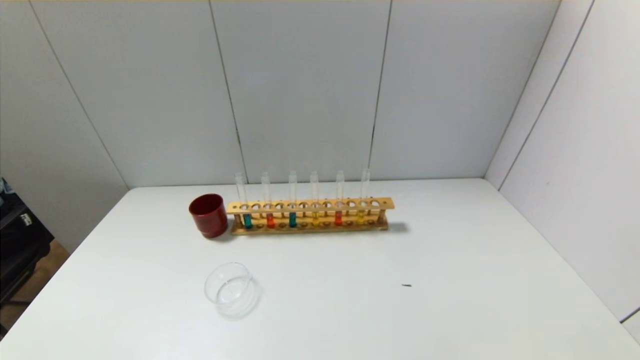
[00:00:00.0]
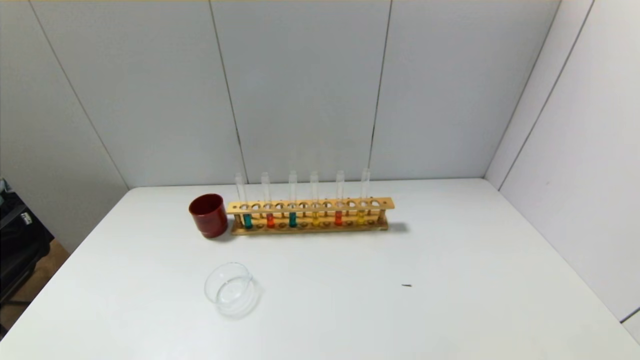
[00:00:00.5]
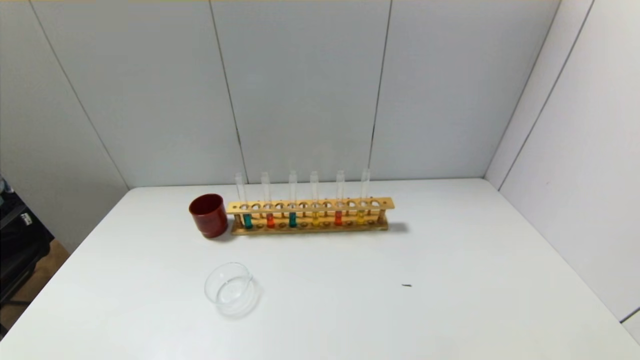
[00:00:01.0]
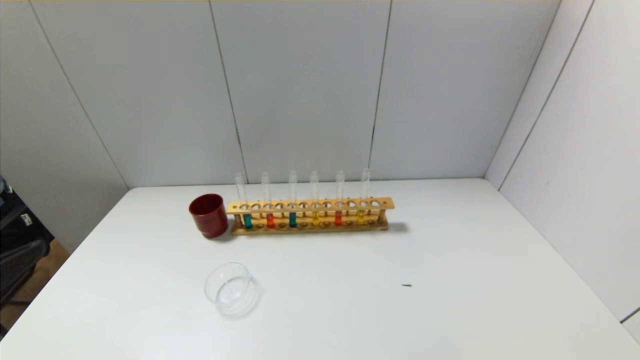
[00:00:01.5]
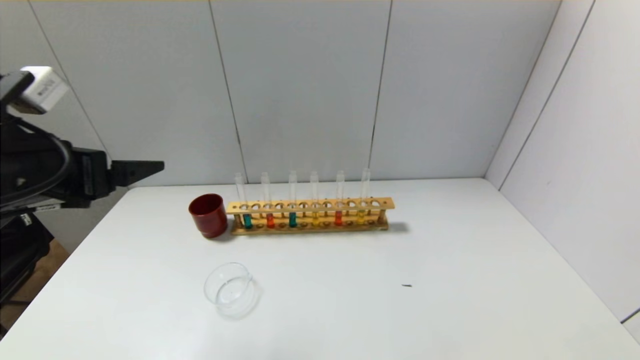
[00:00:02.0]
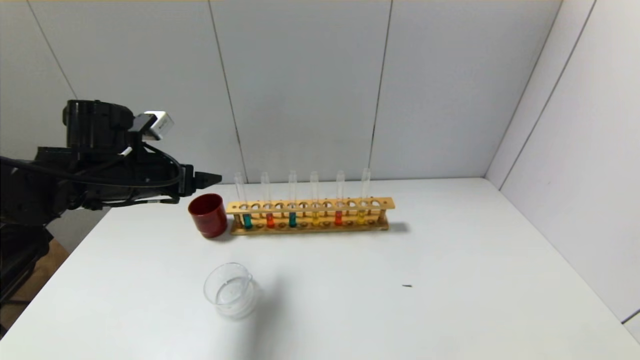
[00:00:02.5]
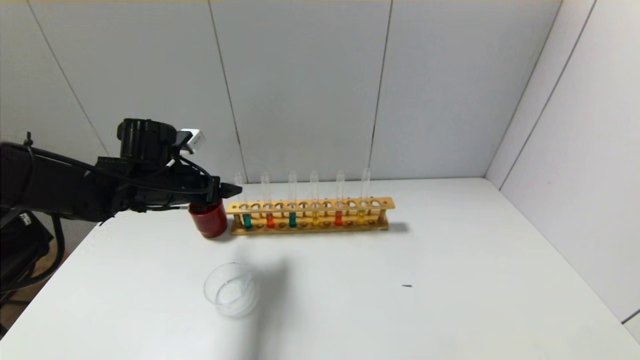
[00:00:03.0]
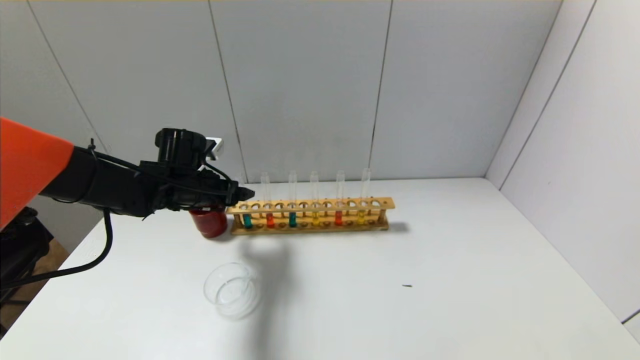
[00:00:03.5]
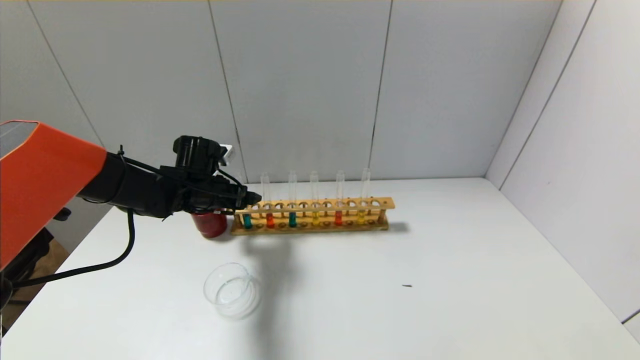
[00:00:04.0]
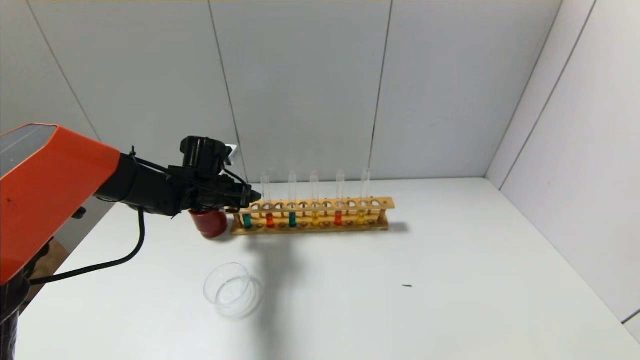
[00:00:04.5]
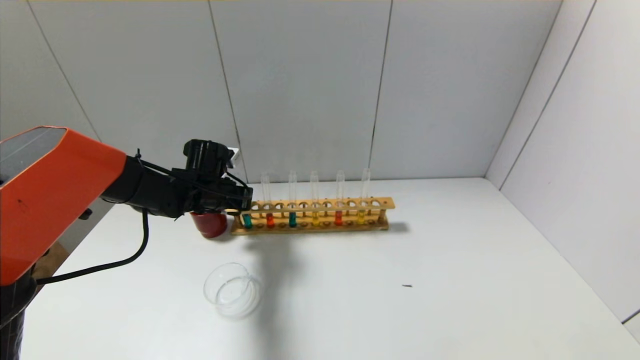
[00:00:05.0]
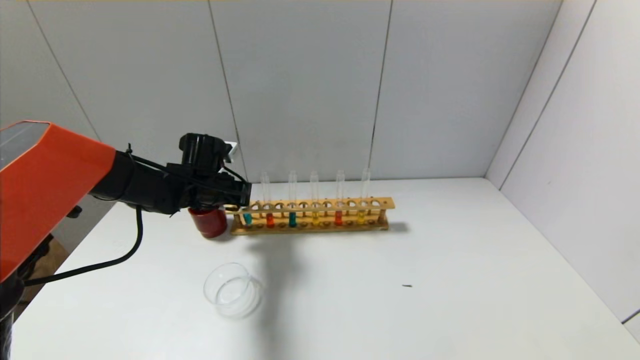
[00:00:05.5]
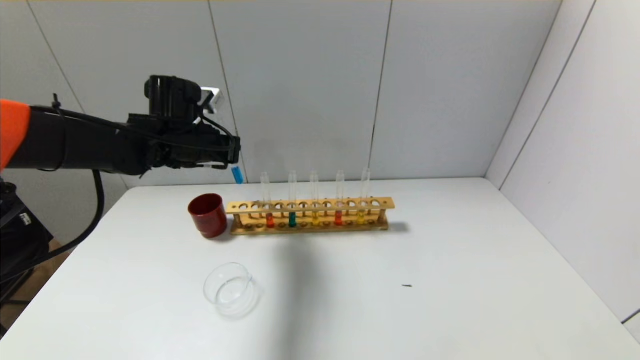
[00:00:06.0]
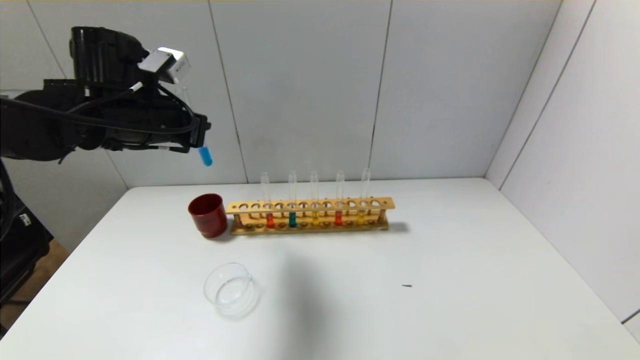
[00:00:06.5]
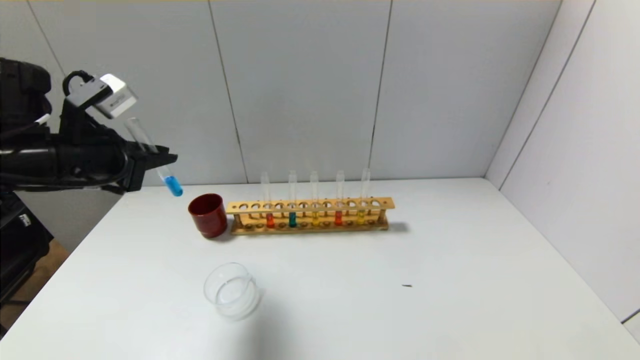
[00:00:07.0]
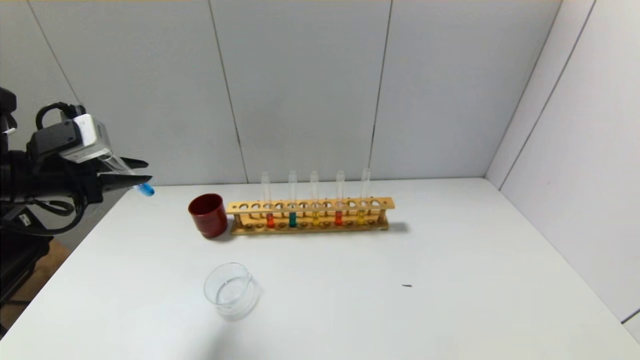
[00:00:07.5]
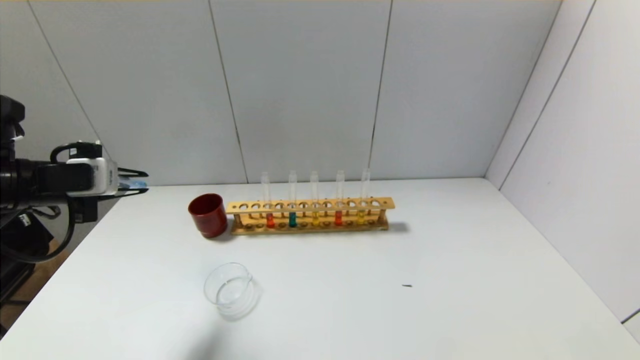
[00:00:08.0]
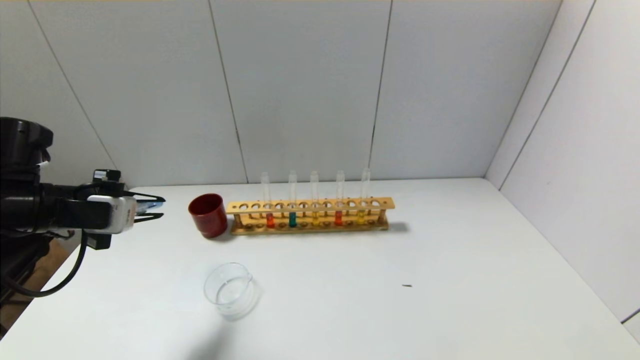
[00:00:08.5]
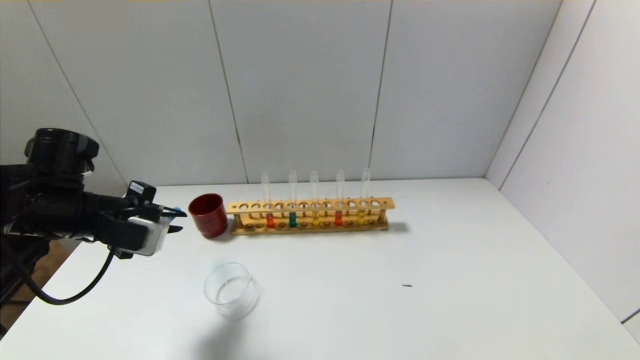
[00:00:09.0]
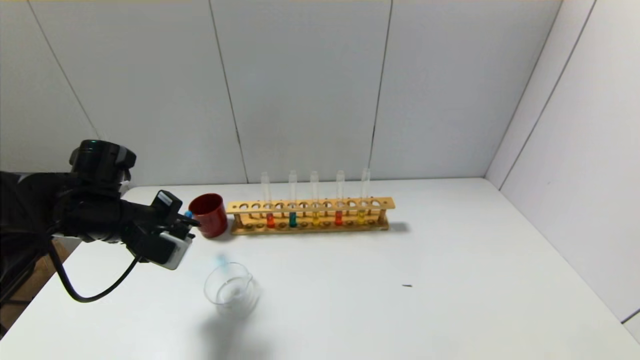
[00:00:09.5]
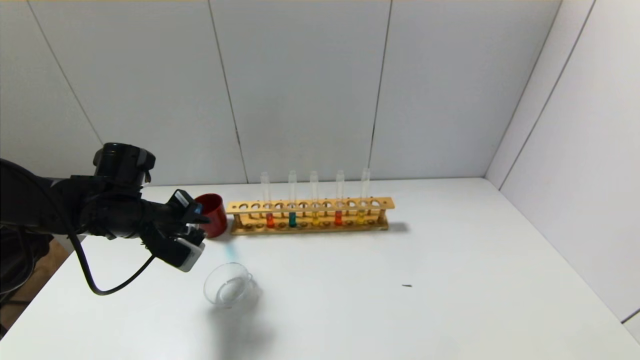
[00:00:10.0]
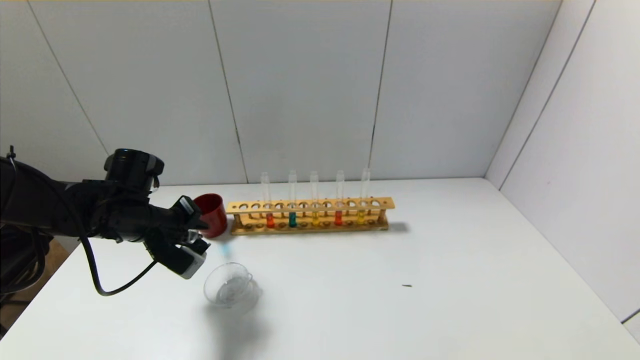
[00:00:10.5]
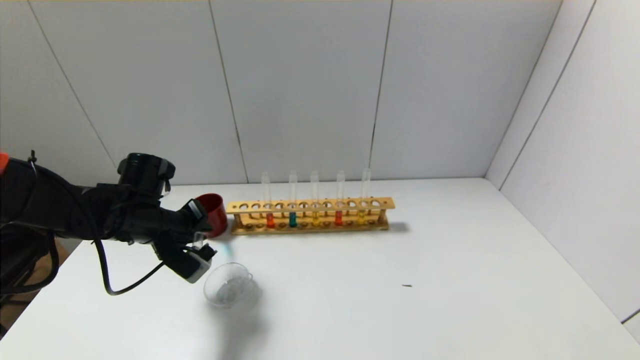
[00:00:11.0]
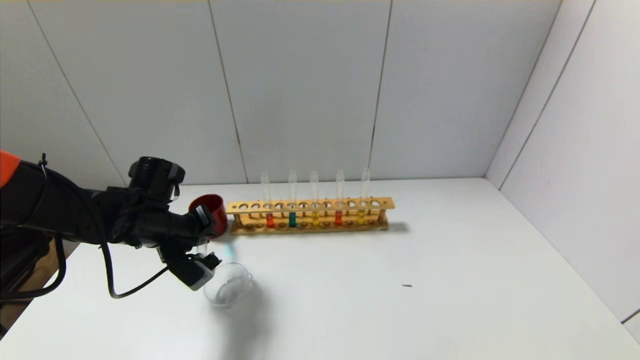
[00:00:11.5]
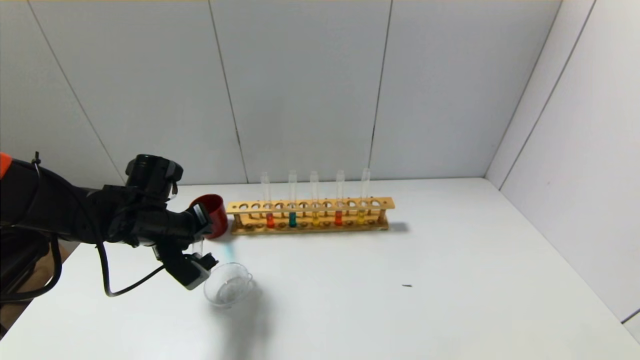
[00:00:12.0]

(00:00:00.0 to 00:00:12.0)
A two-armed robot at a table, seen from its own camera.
Step, 00:00:00.0 - 00:00:05.0: Grasp the blue reagent with the left gripper.
00:00:00.0 - 00:00:02.0: The left gripper moves forward and upward, about 30 cm.
00:00:02.0 - 00:00:04.0: The left gripper heads forward, downward and to the right, covering about 25 cm.
00:00:04.0 - 00:00:06.0: The left gripper is displaced upward by some 10 cm, and closes up.
00:00:06.0 - 00:00:08.0: The left gripper moves to the left and backward, approximately 20 cm.
00:00:08.0 - 00:00:10.0: The left gripper moves downward, to the right and forward, roughly 10 cm.
00:00:10.0 - 00:00:12.0: The grippers make only small movements.

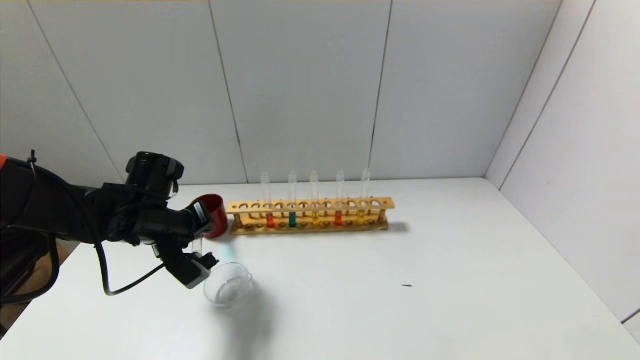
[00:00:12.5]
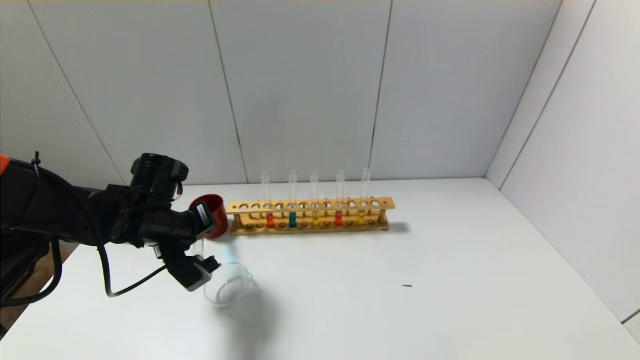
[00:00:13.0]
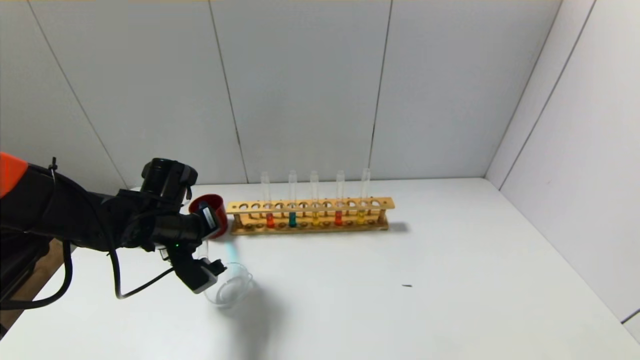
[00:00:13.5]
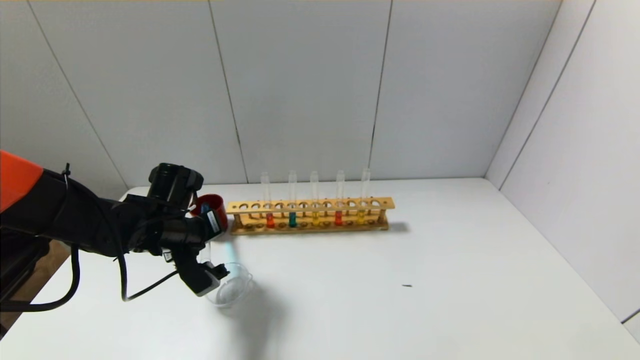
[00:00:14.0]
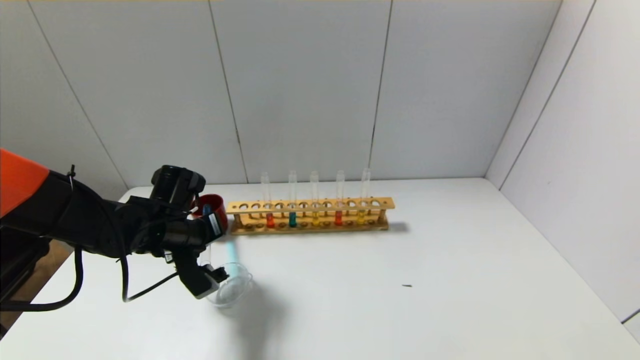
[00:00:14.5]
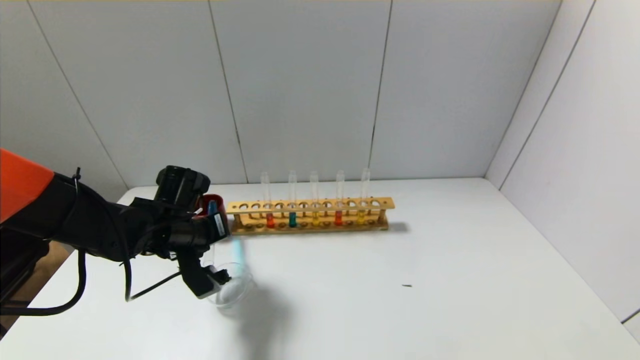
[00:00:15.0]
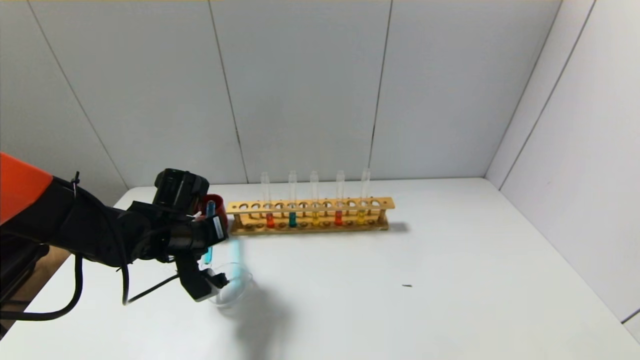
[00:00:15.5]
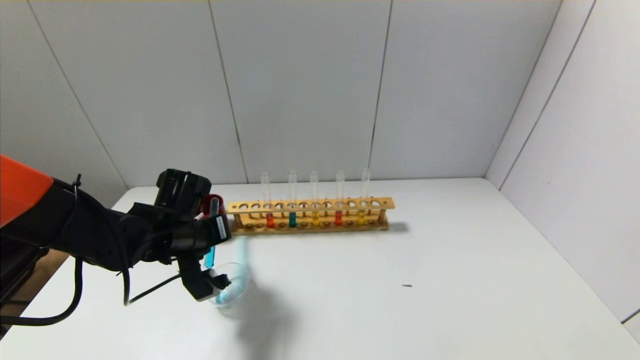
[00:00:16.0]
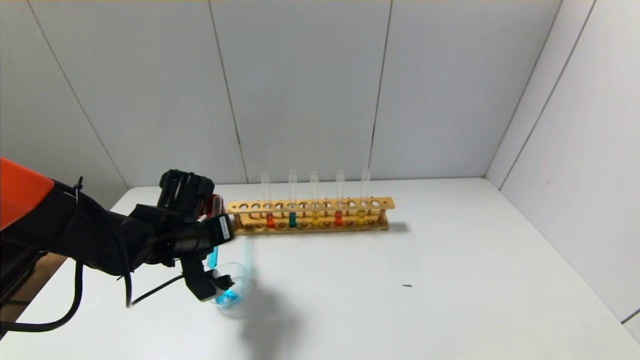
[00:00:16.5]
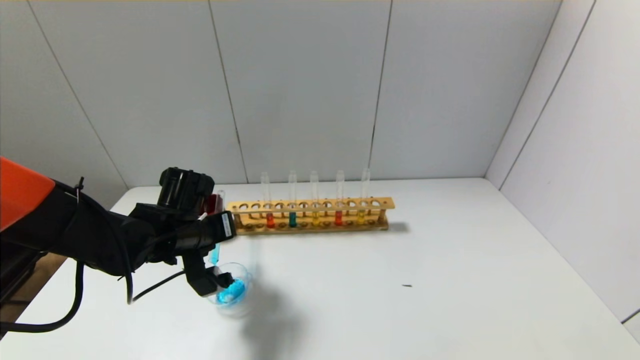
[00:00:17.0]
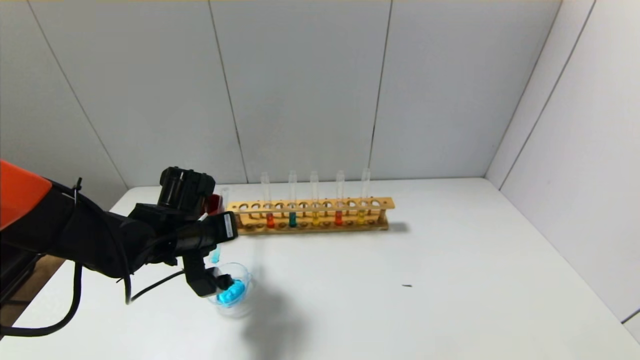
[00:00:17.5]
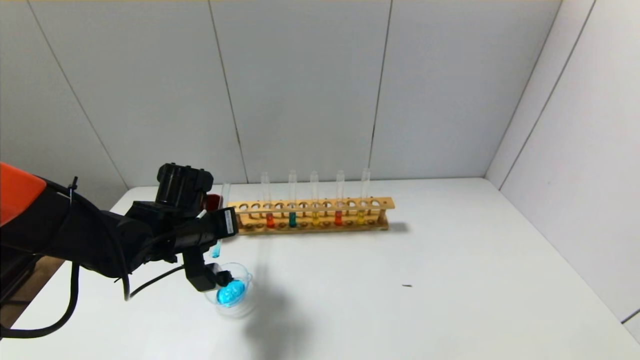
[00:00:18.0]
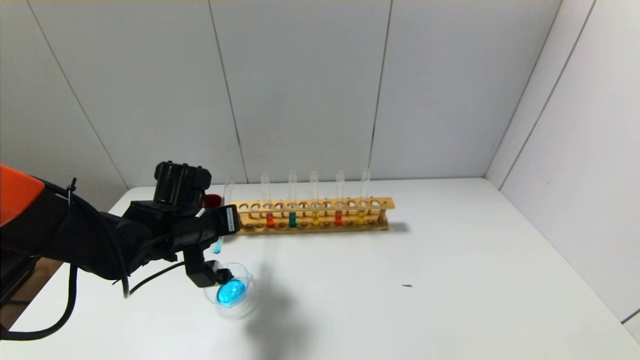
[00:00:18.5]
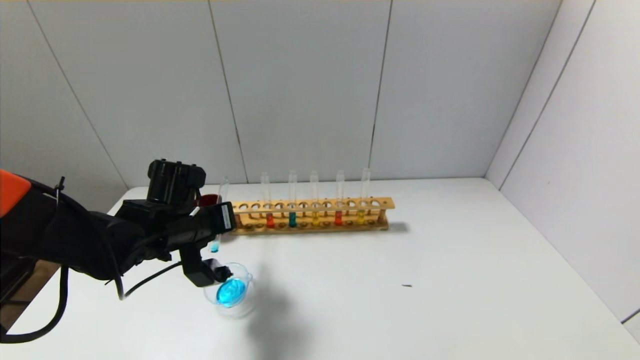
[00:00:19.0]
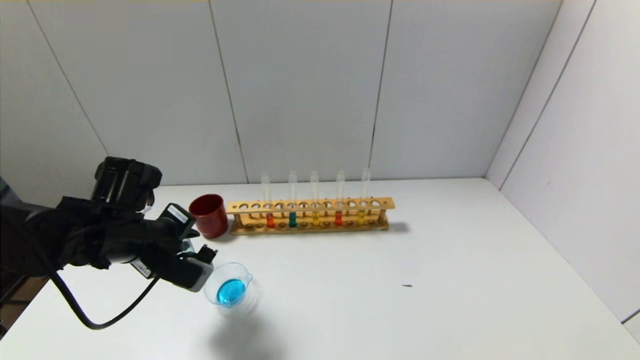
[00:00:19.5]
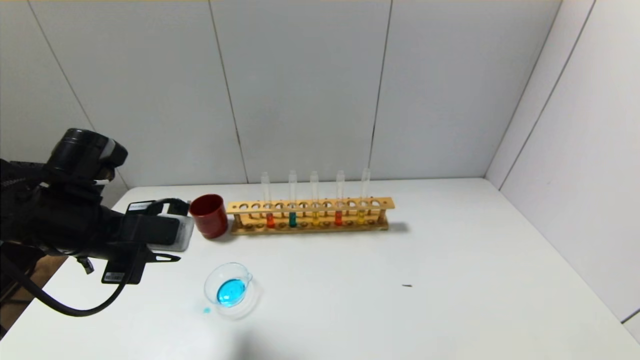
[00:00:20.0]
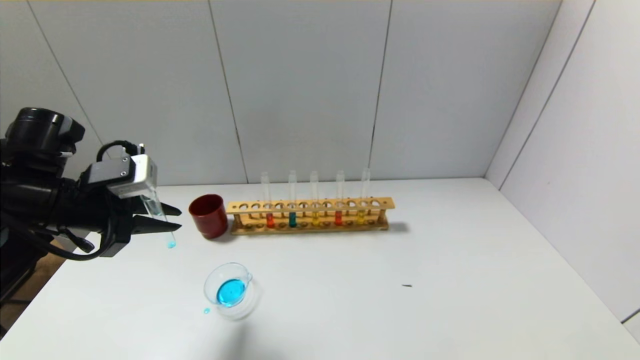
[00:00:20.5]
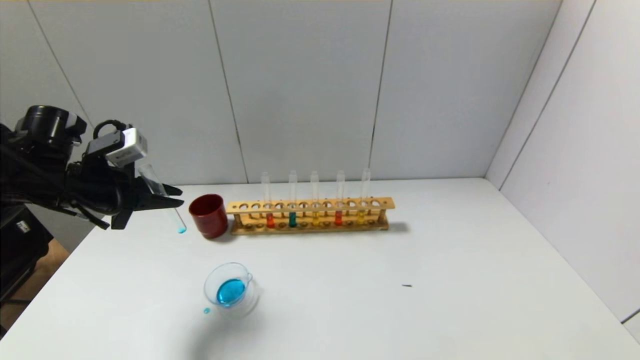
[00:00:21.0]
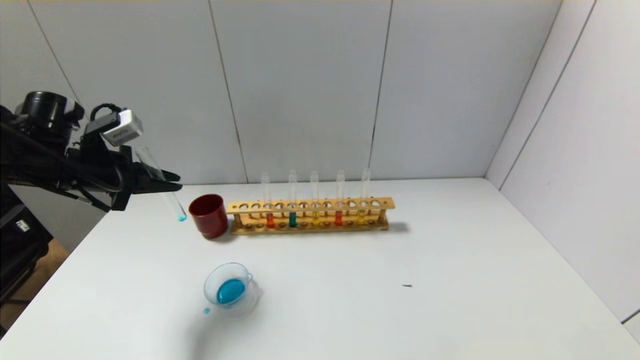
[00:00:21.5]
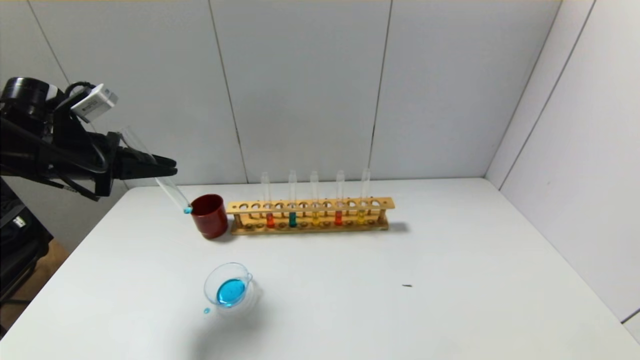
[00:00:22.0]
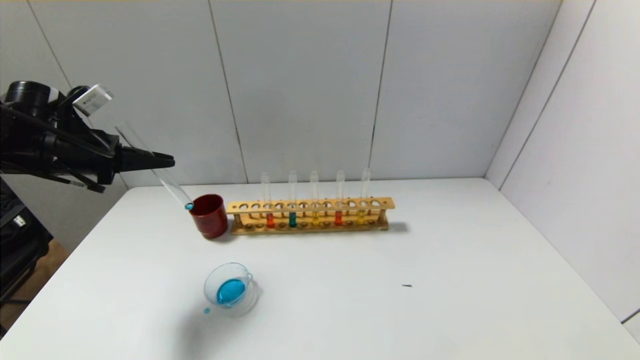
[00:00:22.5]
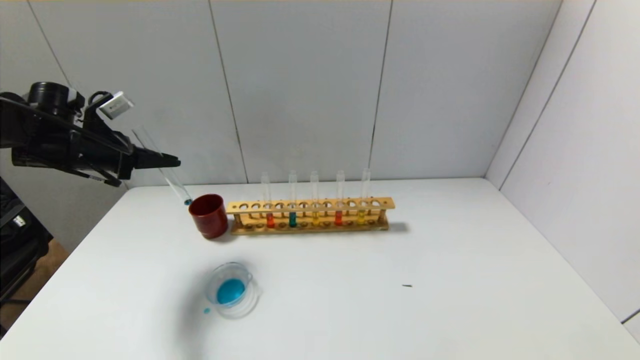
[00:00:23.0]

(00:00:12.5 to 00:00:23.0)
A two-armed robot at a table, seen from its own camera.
Step, 00:00:12.5 - 00:00:19.5: Pour the blue reagent into the graduated cylinder with the left gripper.
00:00:12.5 - 00:00:16.5: There are only small adjustments of the grippers.
00:00:16.5 - 00:00:19.0: The grippers stay close to where they were, moving slightly.
00:00:19.0 - 00:00:21.0: The left gripper travels to the left and upward by approximately 15 cm.
00:00:21.0 - 00:00:23.0: The left gripper goes roughly 5 cm forward.
